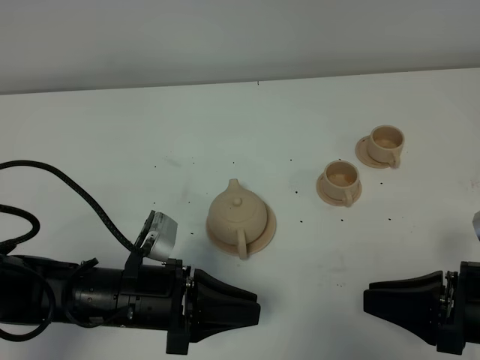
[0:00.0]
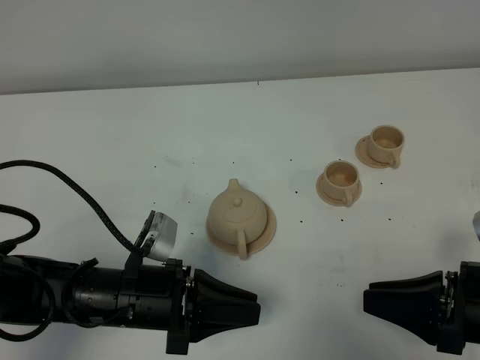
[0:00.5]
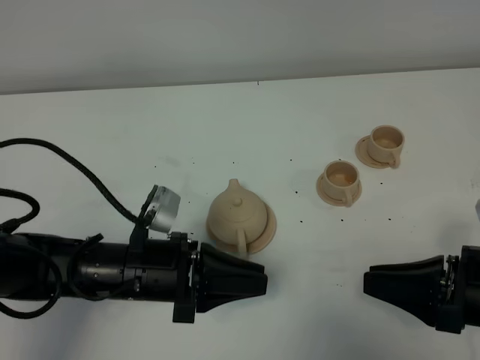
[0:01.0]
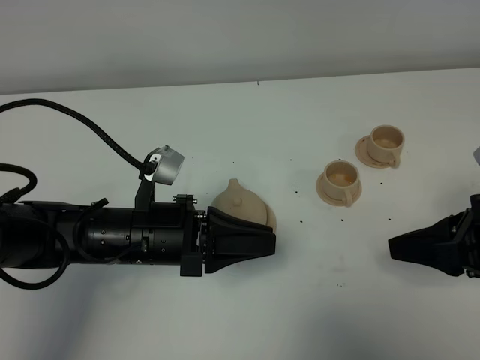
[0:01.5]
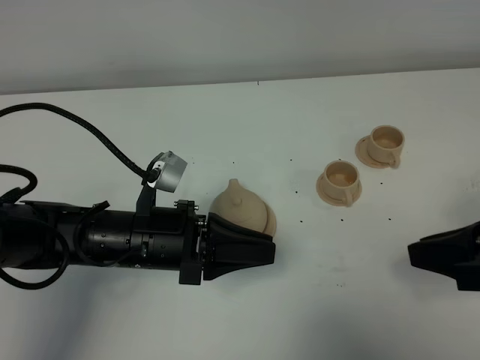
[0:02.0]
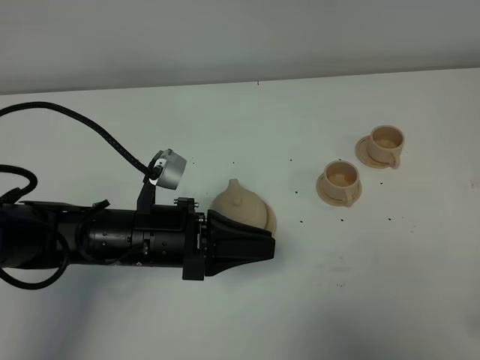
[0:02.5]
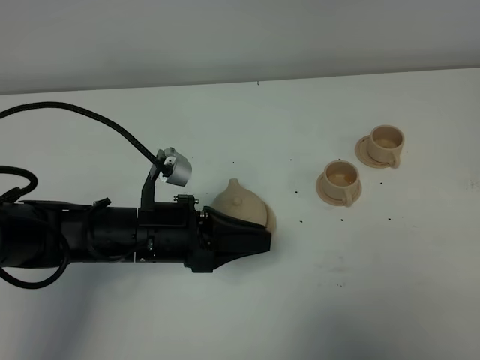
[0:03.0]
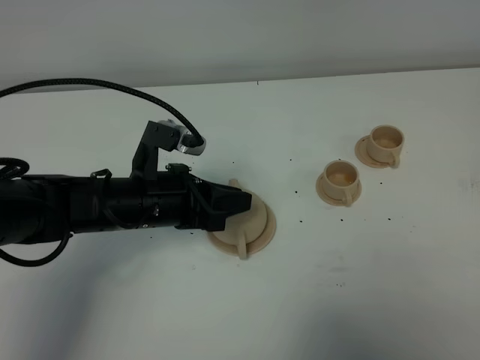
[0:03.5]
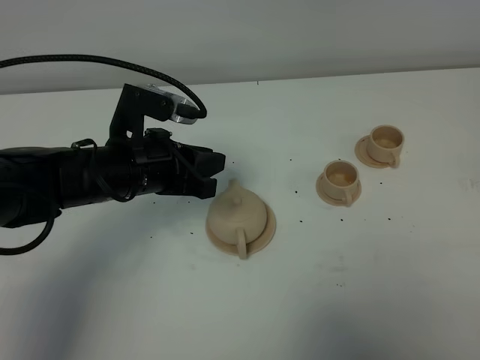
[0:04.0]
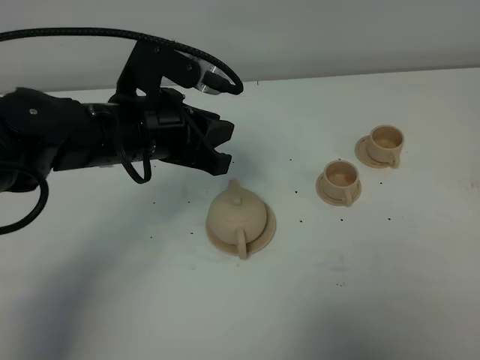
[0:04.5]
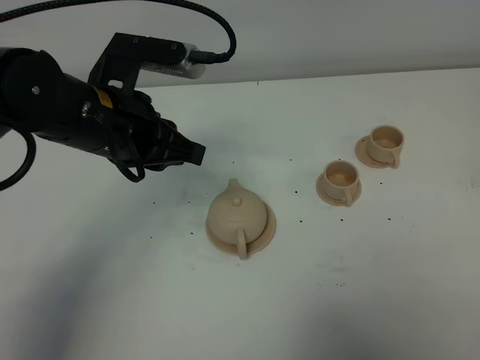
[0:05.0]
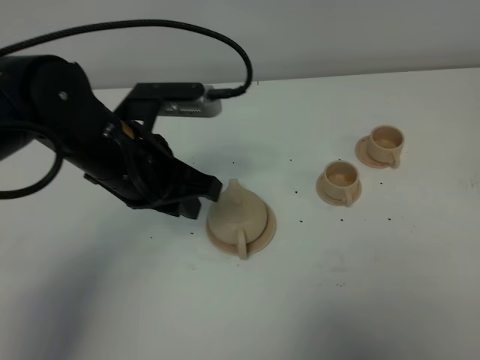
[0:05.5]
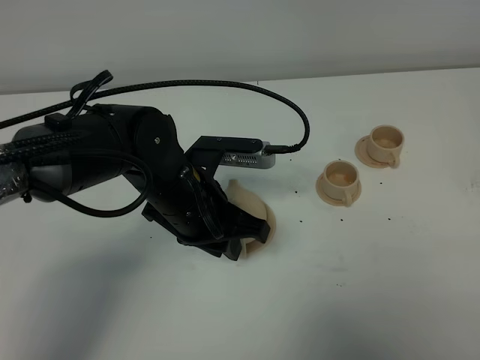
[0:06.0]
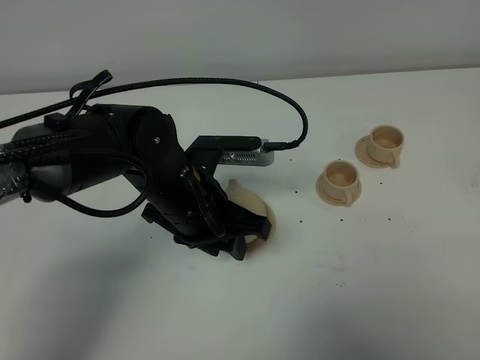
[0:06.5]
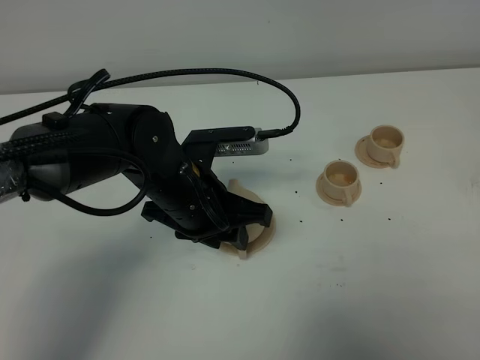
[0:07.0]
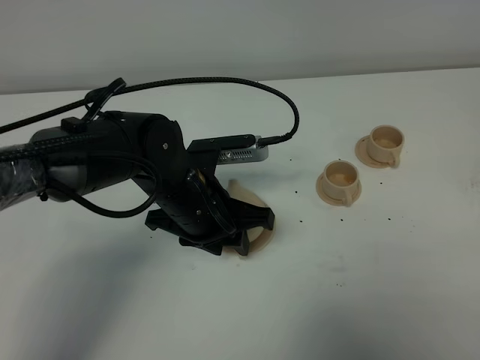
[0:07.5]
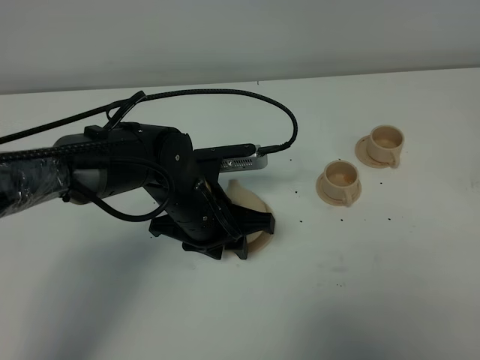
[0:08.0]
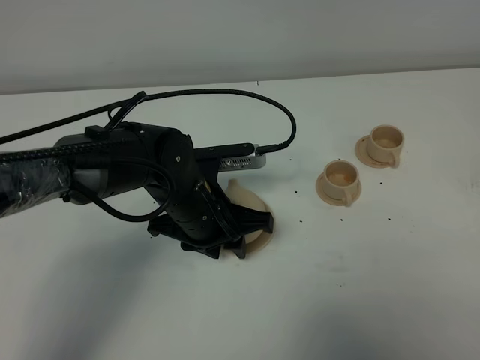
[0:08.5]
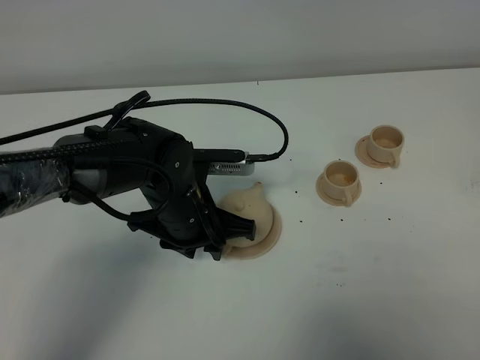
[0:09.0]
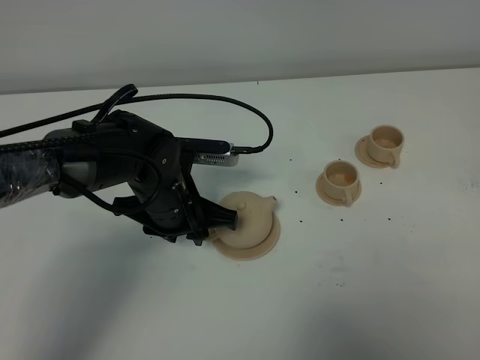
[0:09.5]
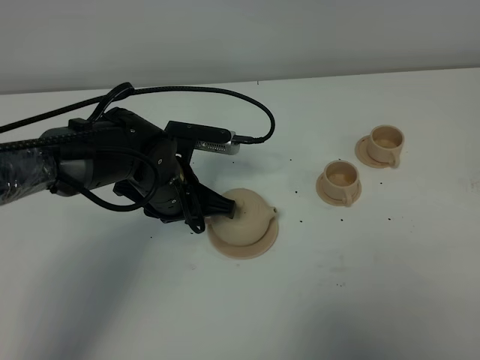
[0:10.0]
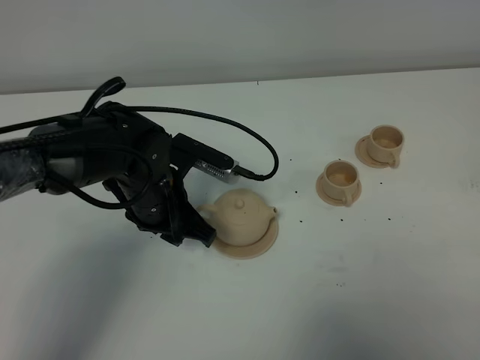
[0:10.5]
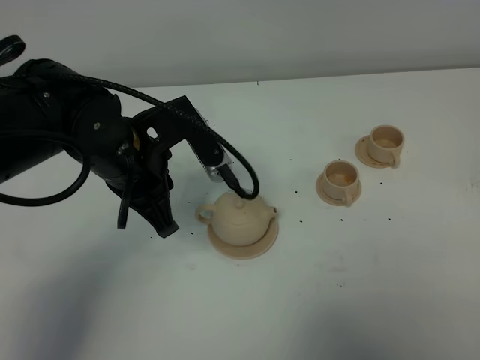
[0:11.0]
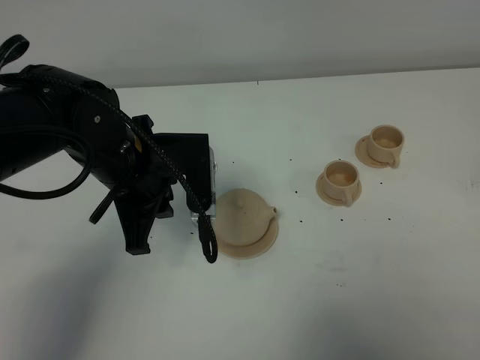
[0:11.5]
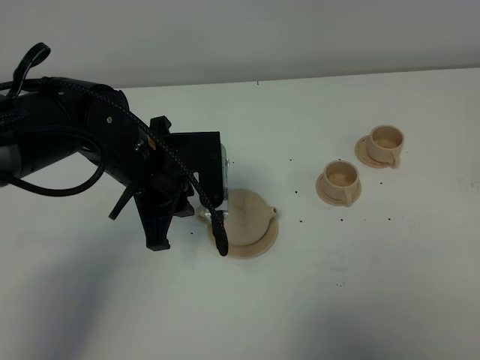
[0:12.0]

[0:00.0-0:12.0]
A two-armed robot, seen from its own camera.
Task of the whole recording: grasp the brown teapot and pour the tea into the two brown teacups one by one, put the brown teapot back in its original place.
0:00.0 to 0:02.0: The right gripper goes roughly 10 cm upward. Meanwhile the left gripper changes place by approximately 5 cm.
0:02.0 to 0:04.0: The left gripper heads forward, covering roughly 5 cm. Meanwhile the right gripper shifts approximately 15 cm backward and to the right.
0:04.0 to 0:06.0: The left gripper is displaced to the right by about 10 cm, and moves about 10 cm upward and comes back.
0:06.0 to 0:08.0: The left gripper opens up.
0:08.0 to 0:10.0: The grippers move only a little.
0:10.0 to 0:12.0: The left gripper goes approximately 5 cm upward.

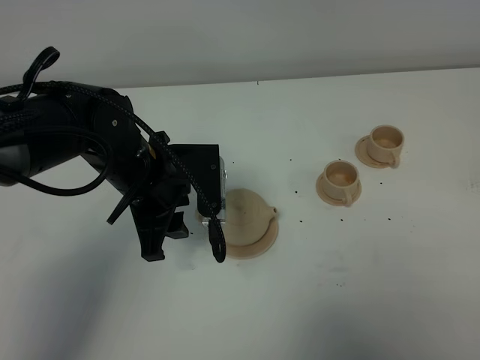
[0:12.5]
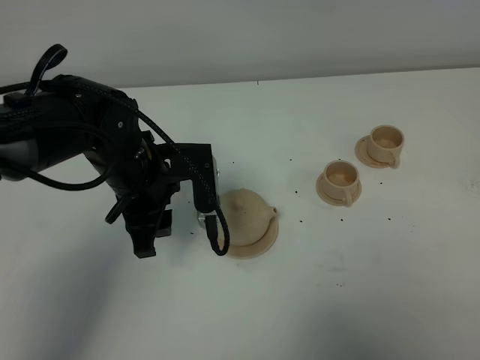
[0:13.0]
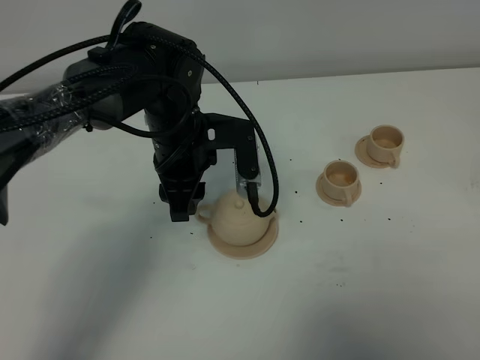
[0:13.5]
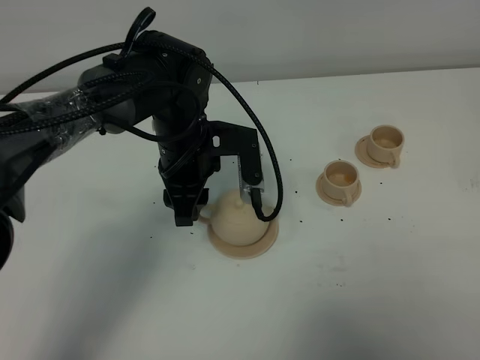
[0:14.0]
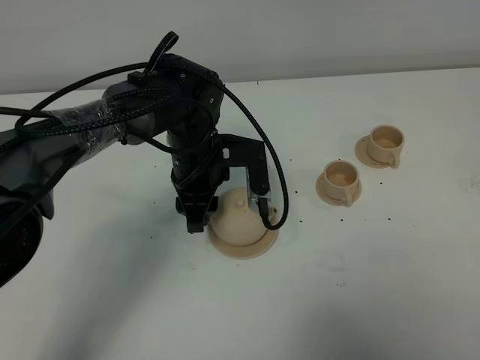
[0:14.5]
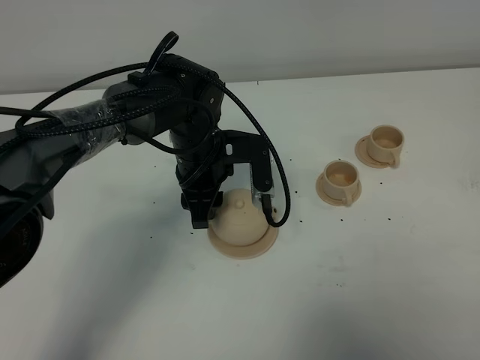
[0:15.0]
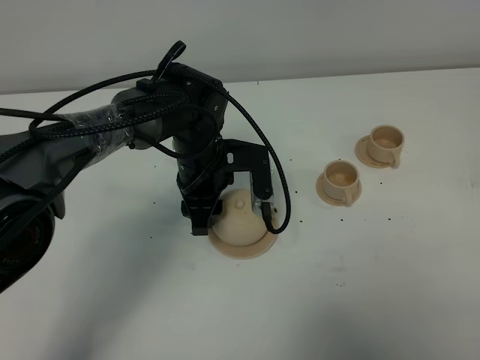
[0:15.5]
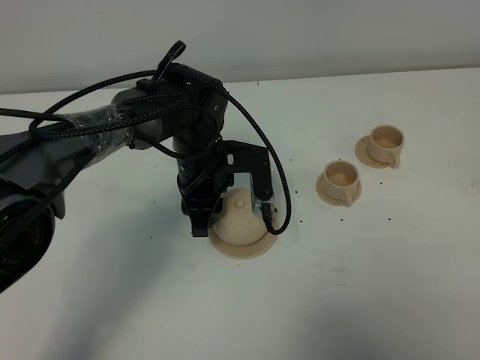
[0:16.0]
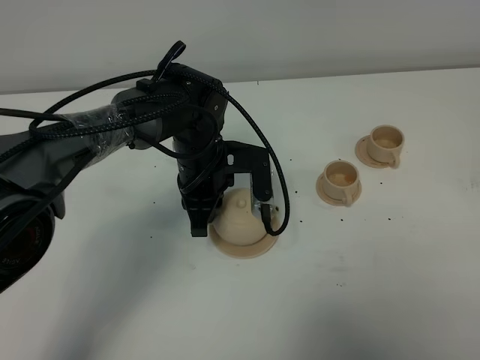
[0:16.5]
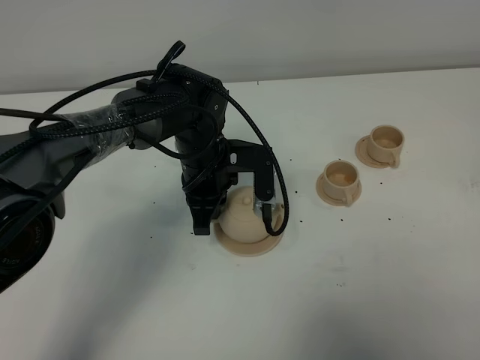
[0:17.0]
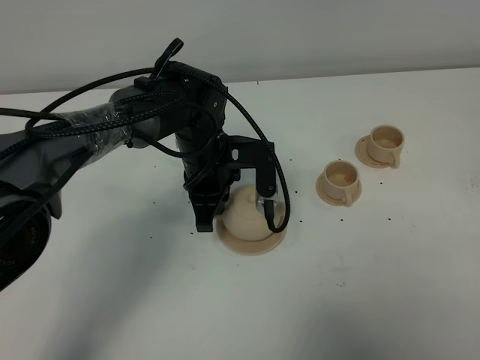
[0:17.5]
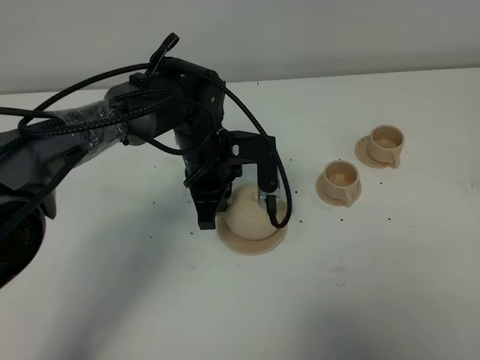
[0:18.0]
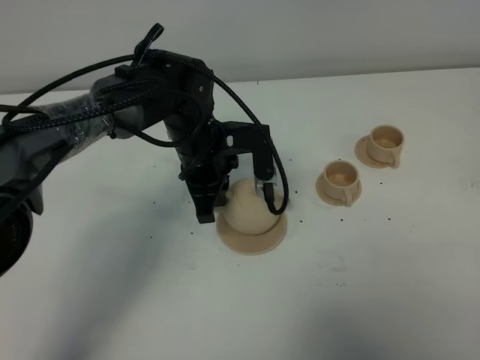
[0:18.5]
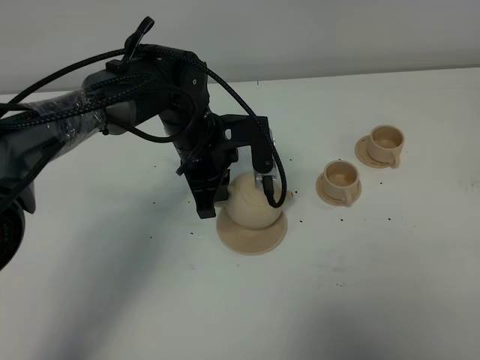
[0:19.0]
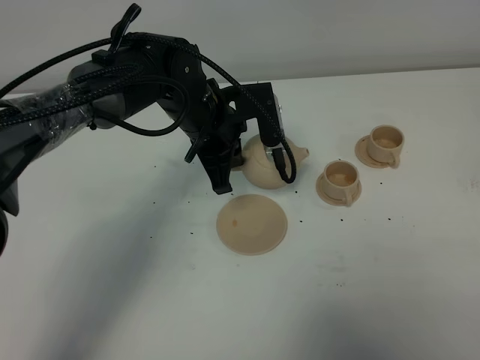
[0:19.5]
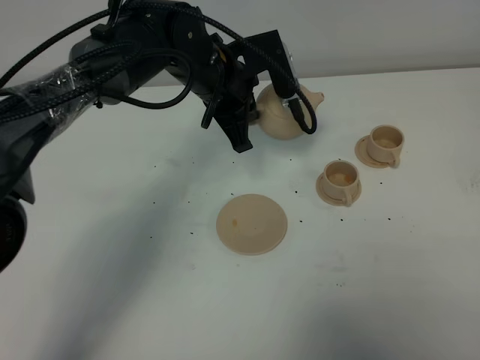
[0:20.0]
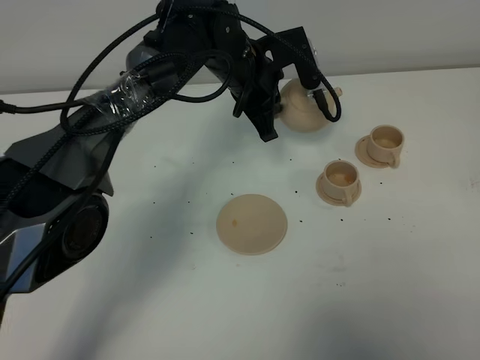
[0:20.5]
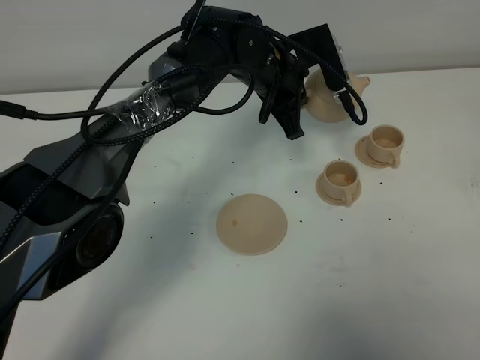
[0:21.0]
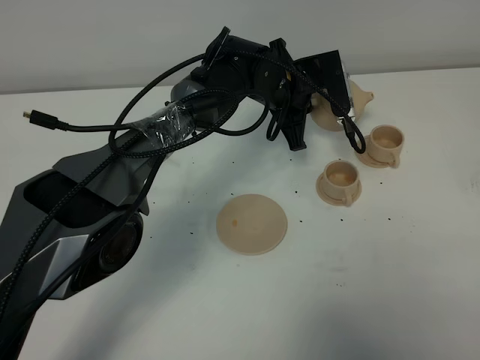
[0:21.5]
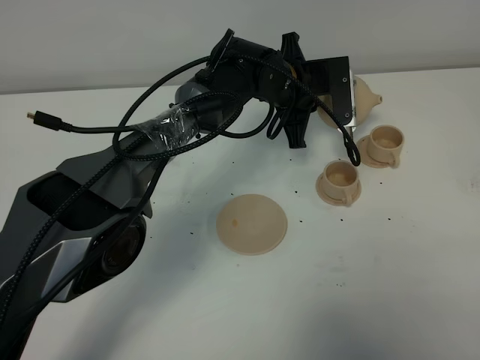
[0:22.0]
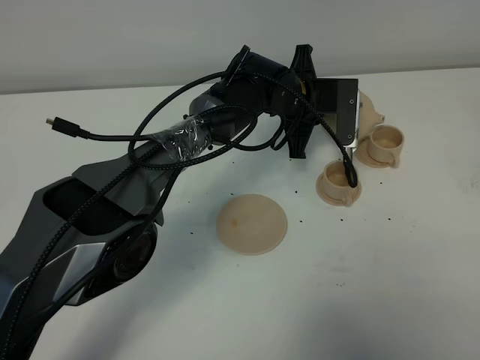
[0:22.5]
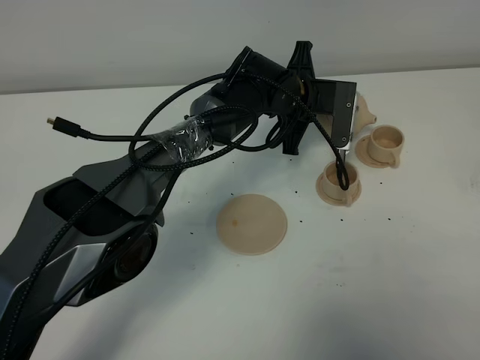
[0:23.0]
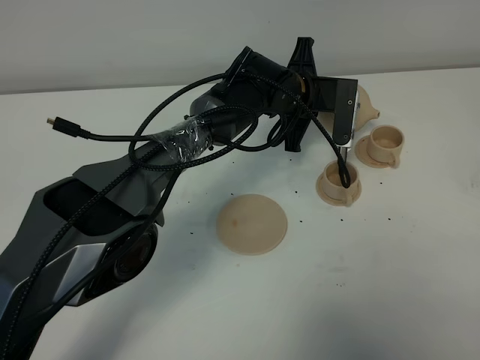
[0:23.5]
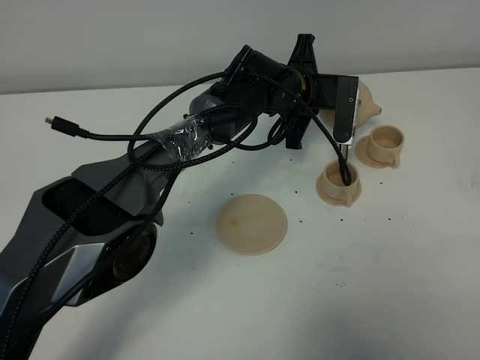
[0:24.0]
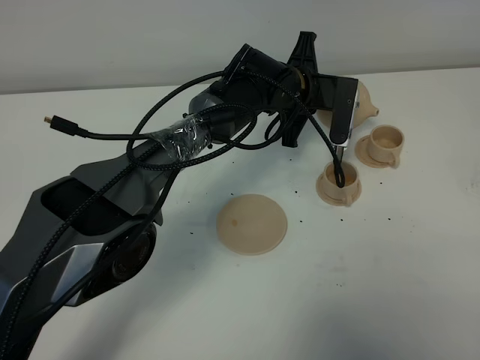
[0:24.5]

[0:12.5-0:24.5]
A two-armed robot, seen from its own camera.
Task of the whole recording: grasp the brown teapot and pour the tea into the two brown teacups one by one, put the brown teapot back in its original place.
Step, 0:12.5 to 0:17.5: Pick up the teapot with the left gripper.
0:12.5 to 0:14.5: The left gripper moves forward and to the right, some 10 cm.
0:14.5 to 0:16.5: The left gripper closes.
0:16.5 to 0:18.5: The grippers stay close to where they were, moving slightly.
0:18.5 to 0:20.5: The left gripper is displaced forward and to the right by some 10 cm.
0:20.5 to 0:22.5: The left gripper goes approximately 10 cm to the right and downward.
0:22.5 to 0:24.5: The grippers move only a little.

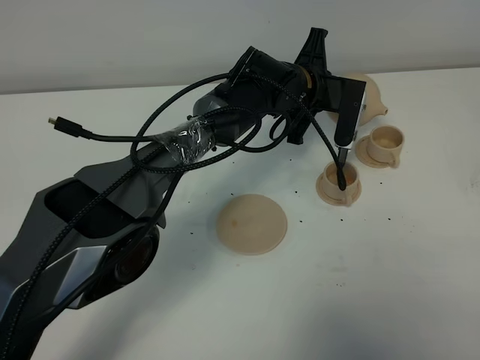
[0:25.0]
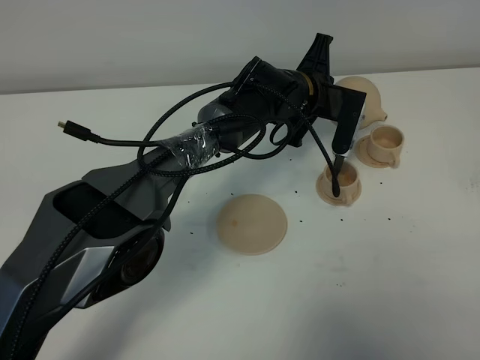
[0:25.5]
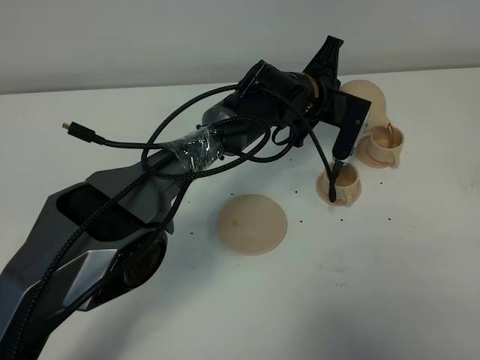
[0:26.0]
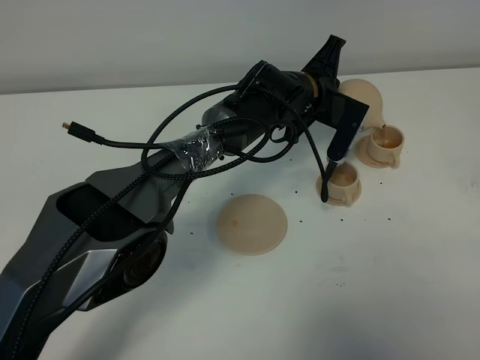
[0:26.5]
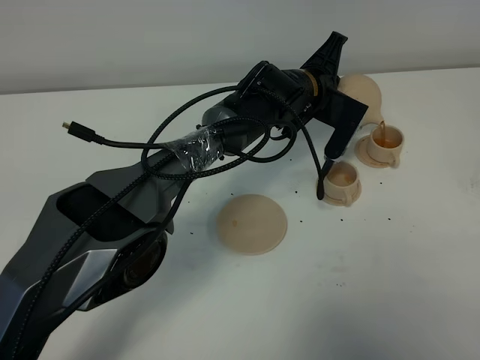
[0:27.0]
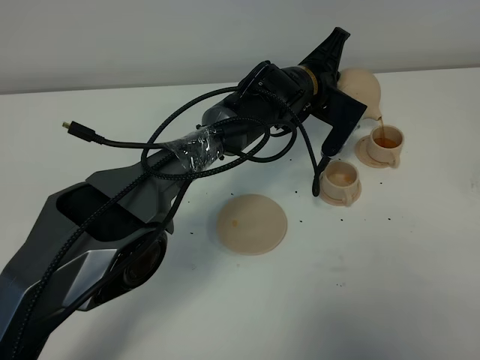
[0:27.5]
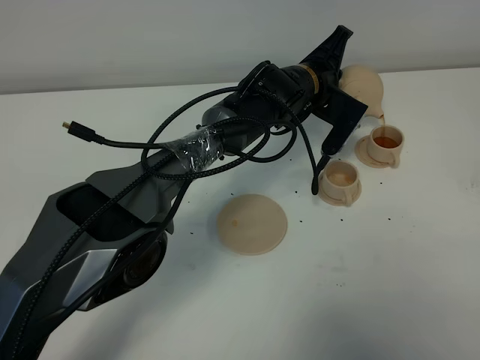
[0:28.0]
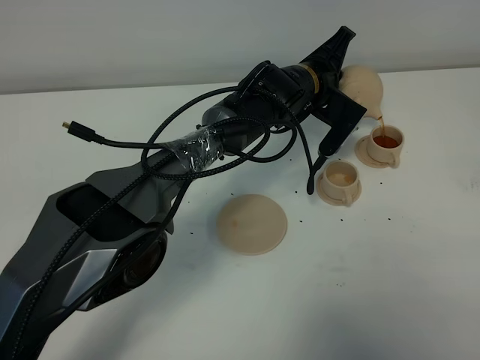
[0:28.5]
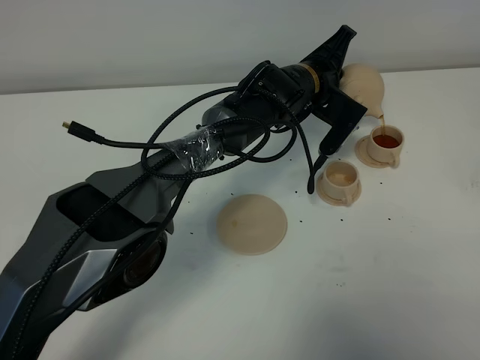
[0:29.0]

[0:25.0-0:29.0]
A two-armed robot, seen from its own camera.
Task of the whole recording: grasp the brown teapot and pour the tea into the two brown teacups one by one, put the brown teapot back in its original place.
0:25.0 to 0:27.0: The grippers stay close to where they were, moving slightly.
0:27.0 to 0:29.0: There are only small adjustments of the grippers.
